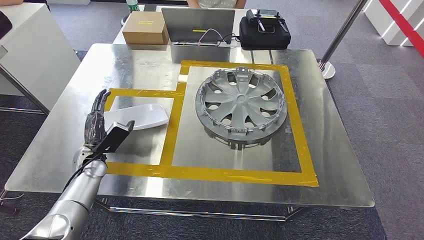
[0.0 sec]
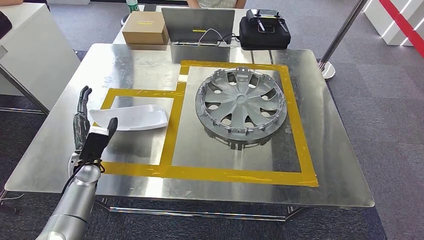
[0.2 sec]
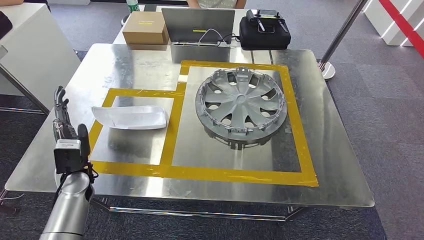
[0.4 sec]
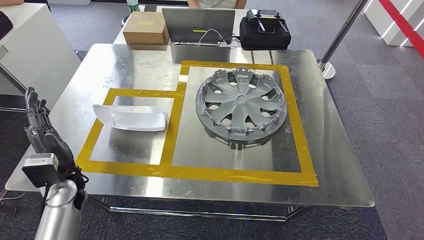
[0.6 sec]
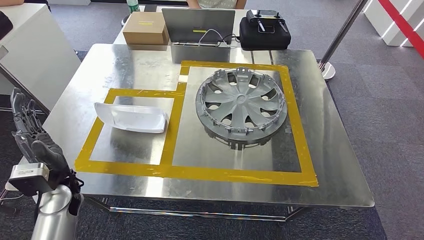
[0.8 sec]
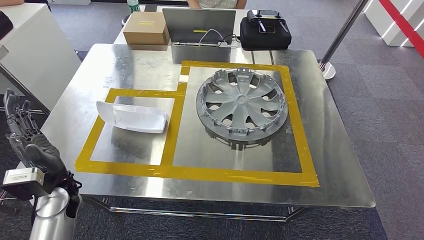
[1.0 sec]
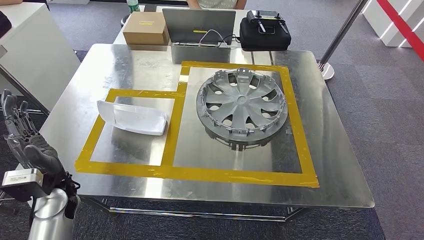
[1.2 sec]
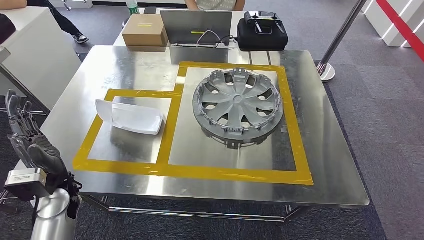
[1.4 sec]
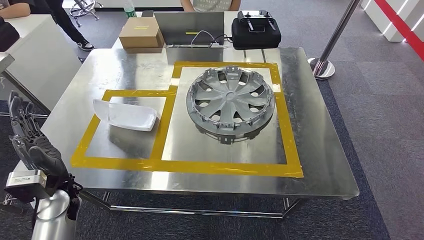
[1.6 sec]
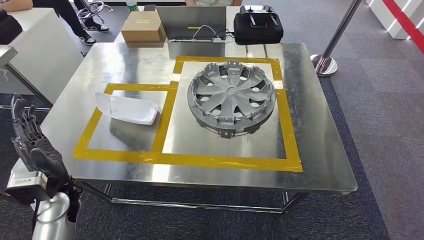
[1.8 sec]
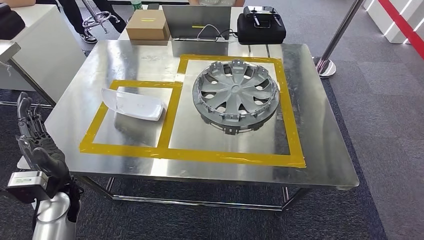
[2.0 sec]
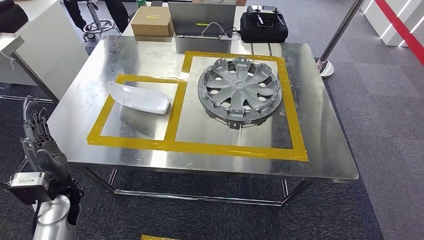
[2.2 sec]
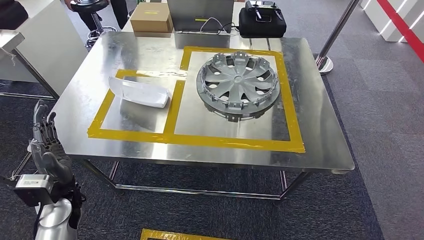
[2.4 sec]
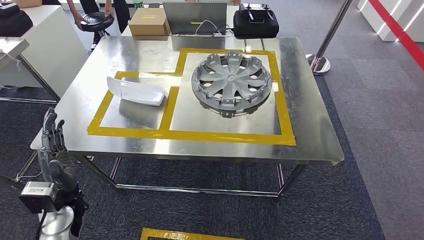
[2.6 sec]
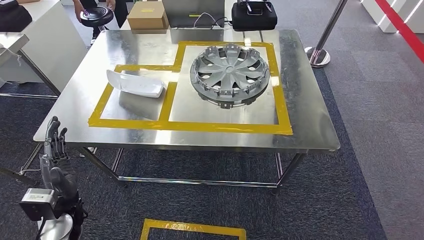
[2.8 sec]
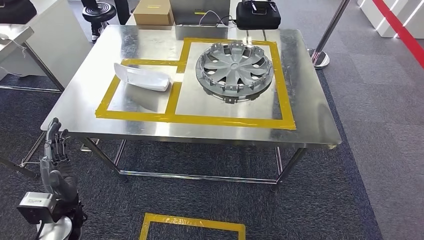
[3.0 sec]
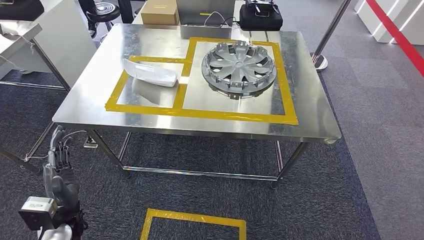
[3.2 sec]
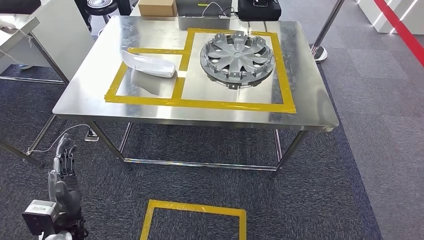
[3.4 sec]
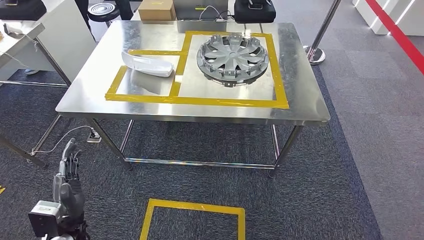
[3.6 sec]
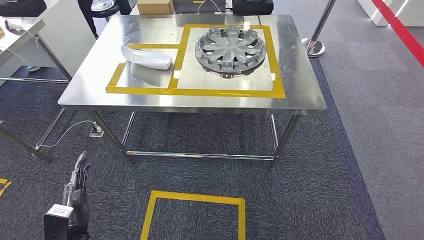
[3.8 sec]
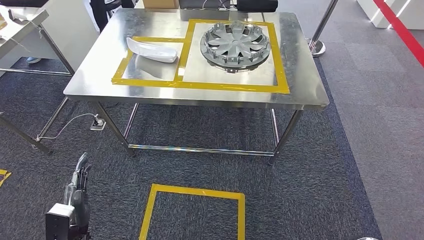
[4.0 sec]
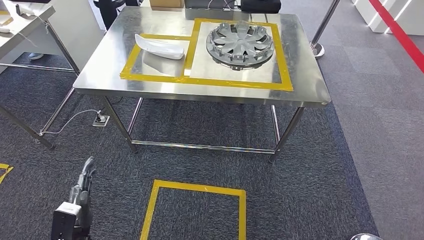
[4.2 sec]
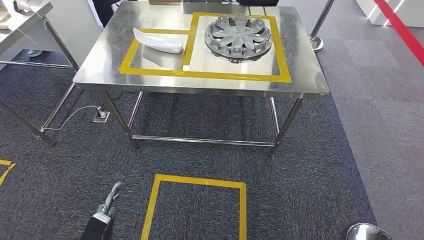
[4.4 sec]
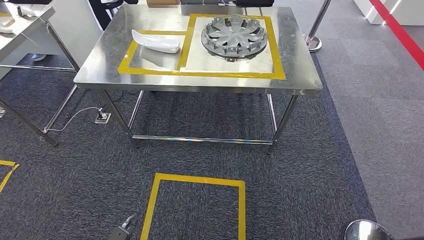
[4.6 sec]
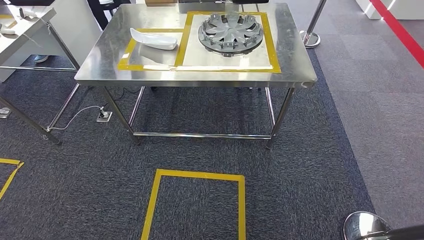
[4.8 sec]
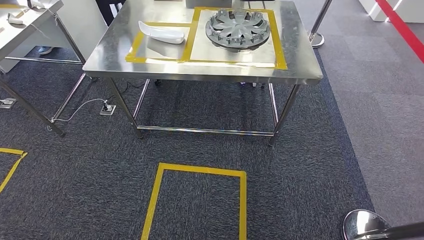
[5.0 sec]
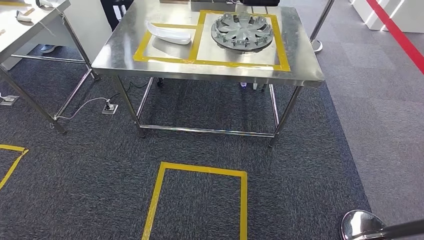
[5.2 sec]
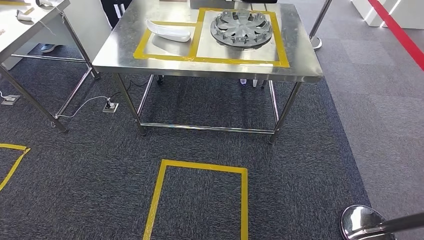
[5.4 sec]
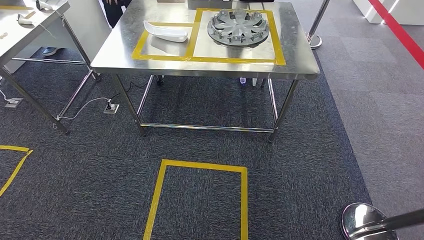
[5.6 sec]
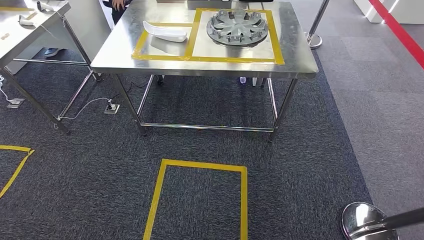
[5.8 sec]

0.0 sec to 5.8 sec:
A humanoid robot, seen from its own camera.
Step, 1.2 sec to 5.6 sec: Return to the initial position at the workbench.

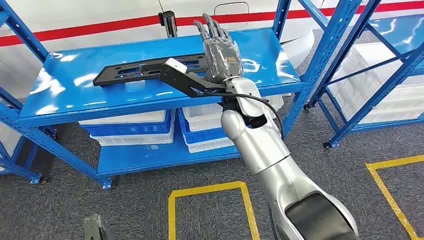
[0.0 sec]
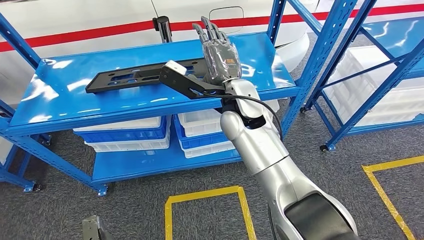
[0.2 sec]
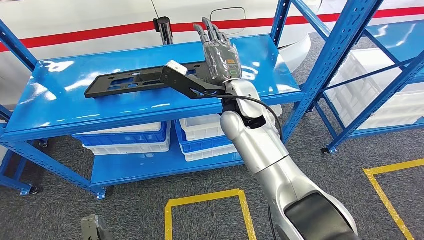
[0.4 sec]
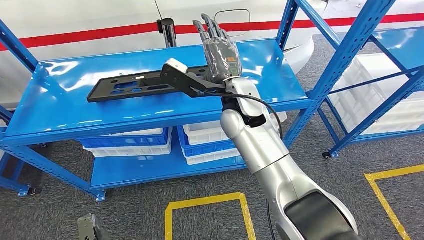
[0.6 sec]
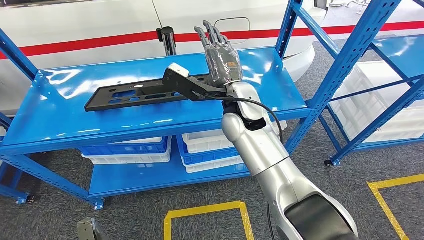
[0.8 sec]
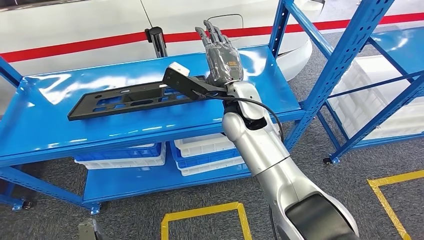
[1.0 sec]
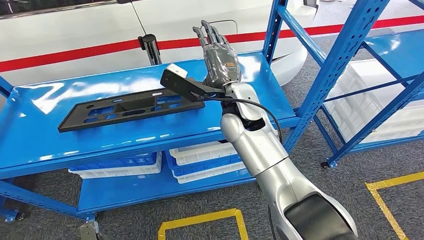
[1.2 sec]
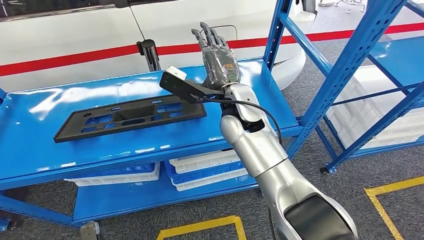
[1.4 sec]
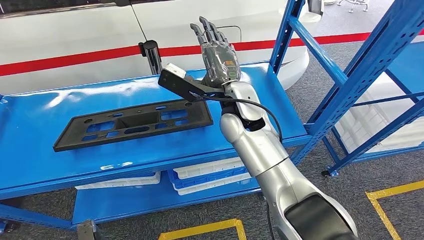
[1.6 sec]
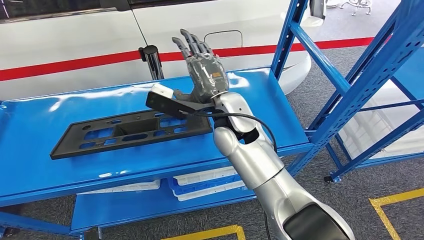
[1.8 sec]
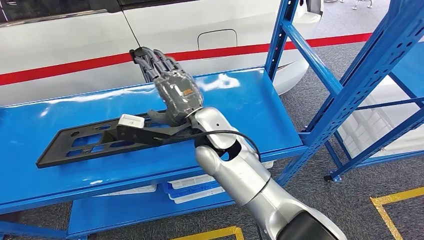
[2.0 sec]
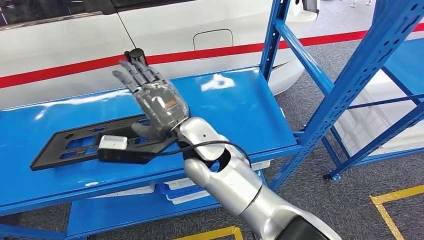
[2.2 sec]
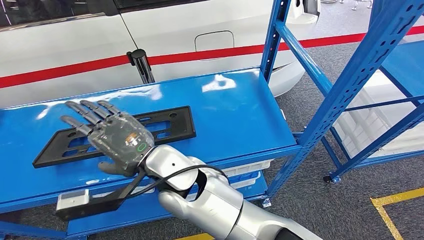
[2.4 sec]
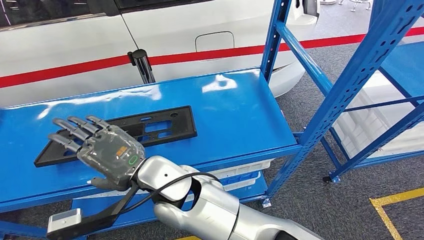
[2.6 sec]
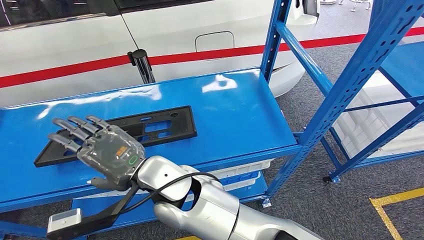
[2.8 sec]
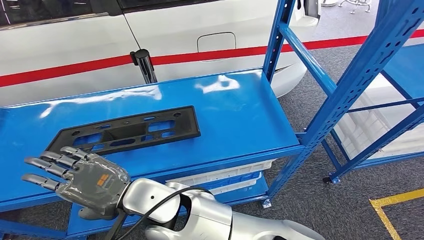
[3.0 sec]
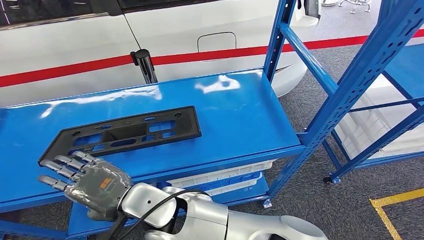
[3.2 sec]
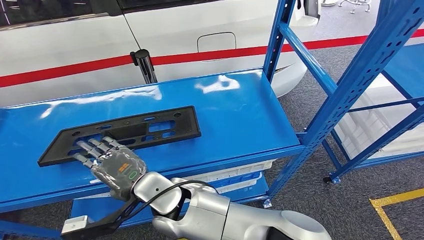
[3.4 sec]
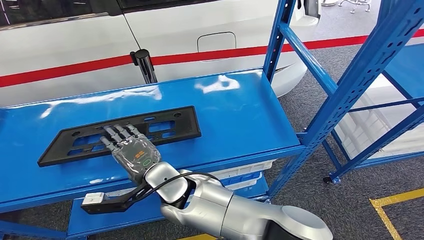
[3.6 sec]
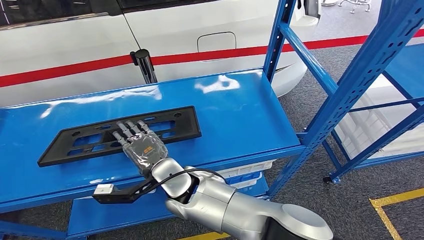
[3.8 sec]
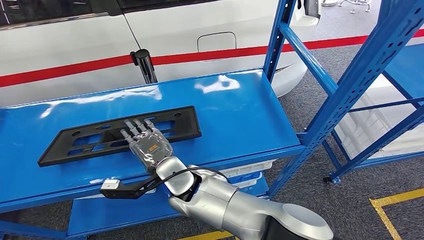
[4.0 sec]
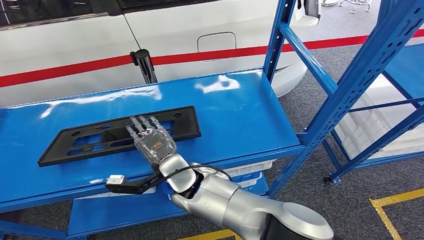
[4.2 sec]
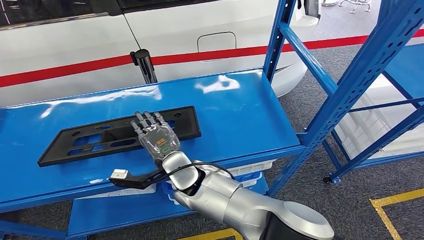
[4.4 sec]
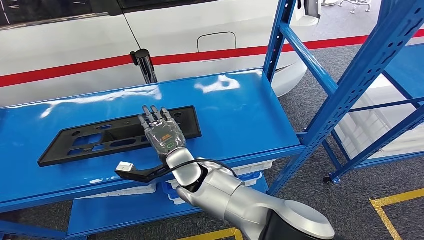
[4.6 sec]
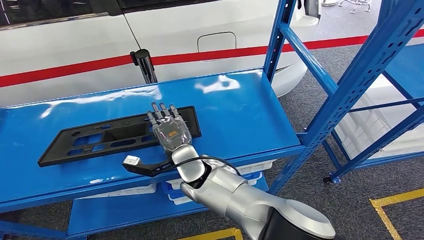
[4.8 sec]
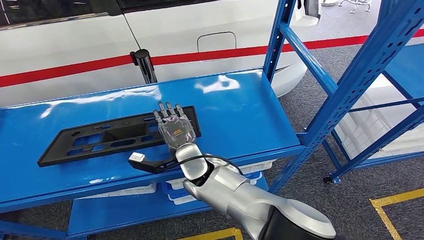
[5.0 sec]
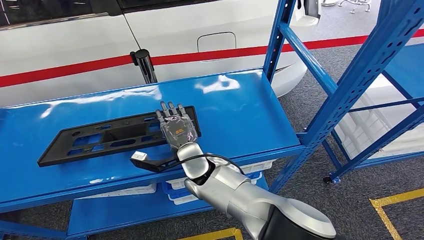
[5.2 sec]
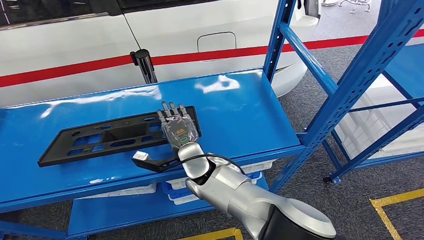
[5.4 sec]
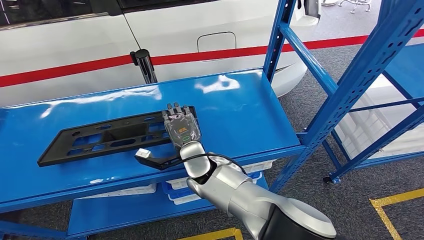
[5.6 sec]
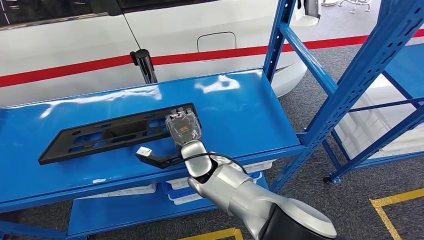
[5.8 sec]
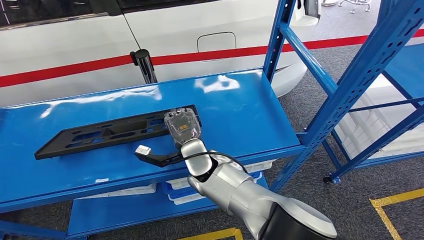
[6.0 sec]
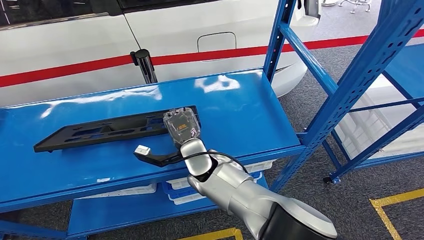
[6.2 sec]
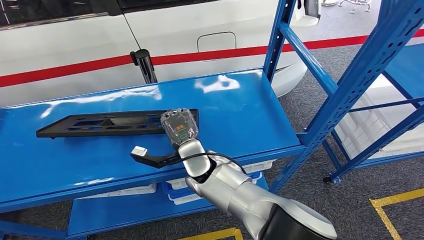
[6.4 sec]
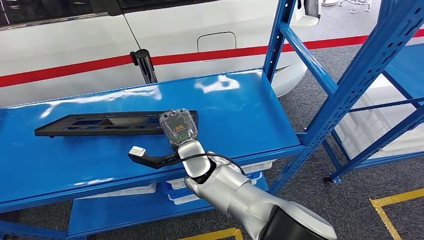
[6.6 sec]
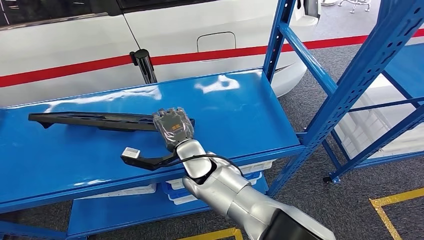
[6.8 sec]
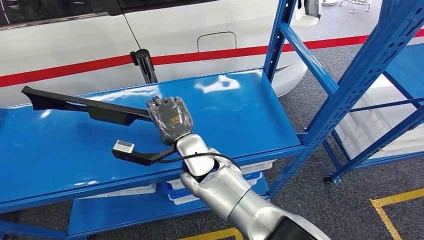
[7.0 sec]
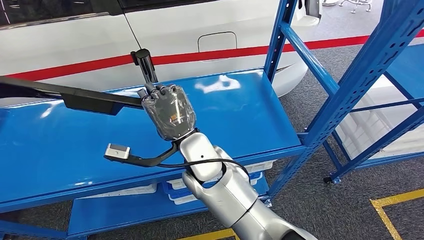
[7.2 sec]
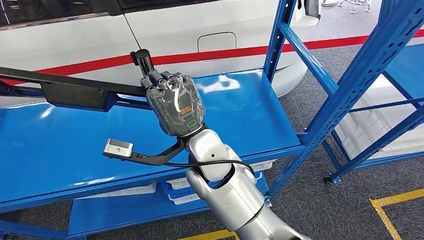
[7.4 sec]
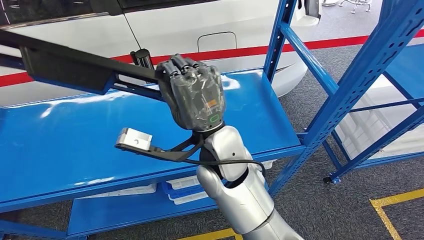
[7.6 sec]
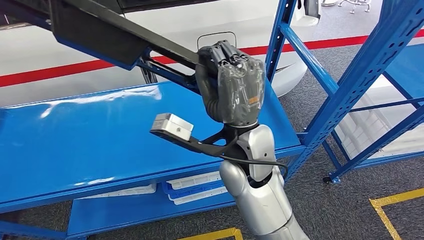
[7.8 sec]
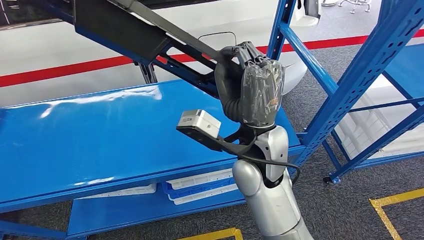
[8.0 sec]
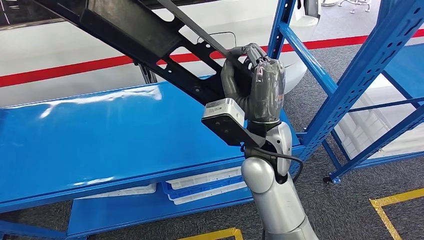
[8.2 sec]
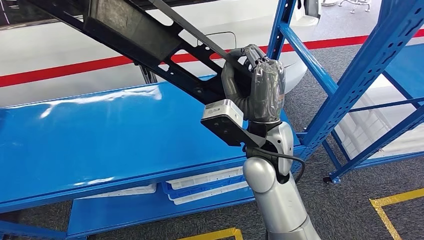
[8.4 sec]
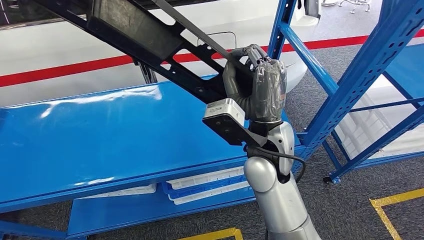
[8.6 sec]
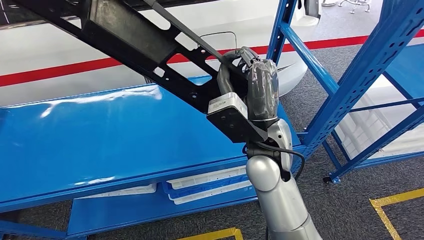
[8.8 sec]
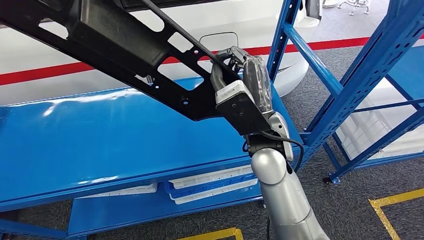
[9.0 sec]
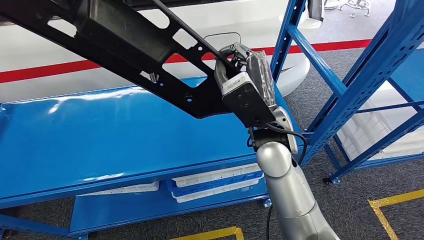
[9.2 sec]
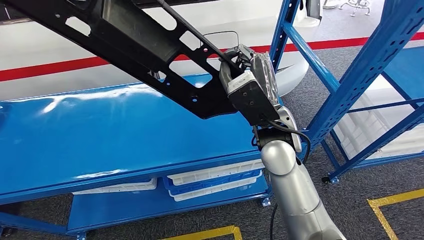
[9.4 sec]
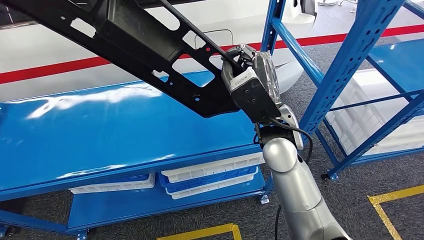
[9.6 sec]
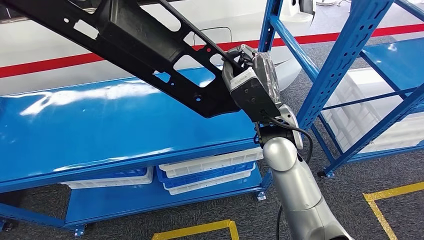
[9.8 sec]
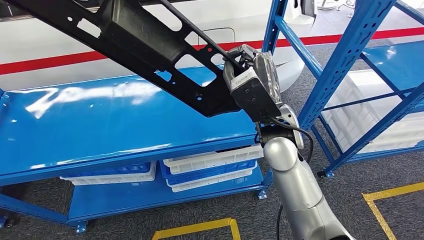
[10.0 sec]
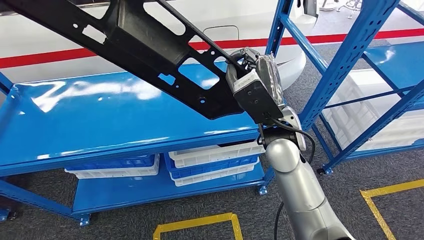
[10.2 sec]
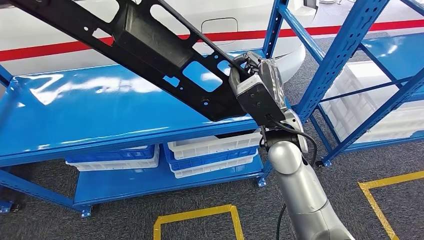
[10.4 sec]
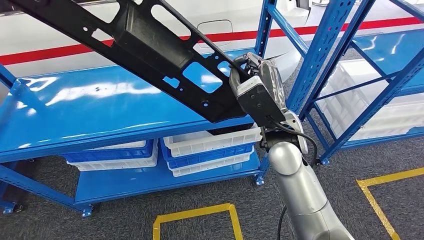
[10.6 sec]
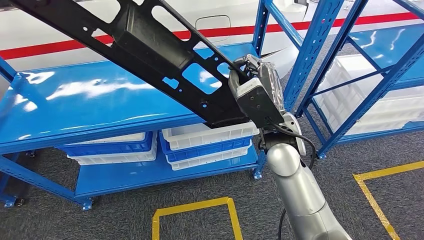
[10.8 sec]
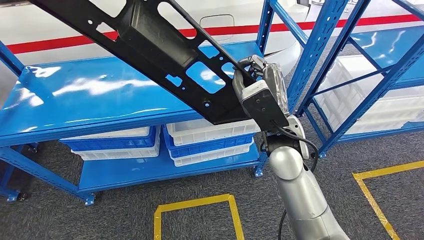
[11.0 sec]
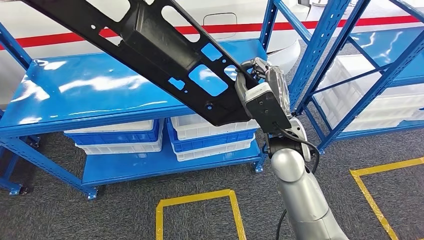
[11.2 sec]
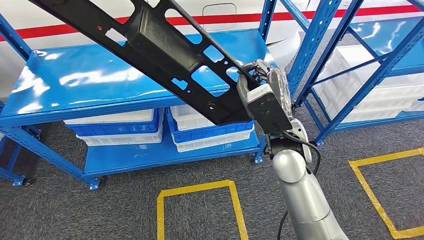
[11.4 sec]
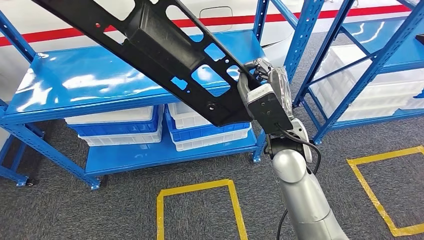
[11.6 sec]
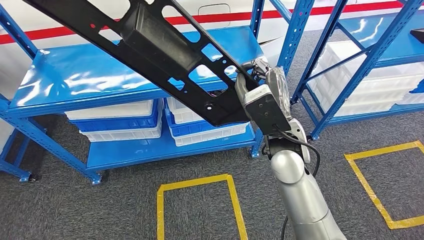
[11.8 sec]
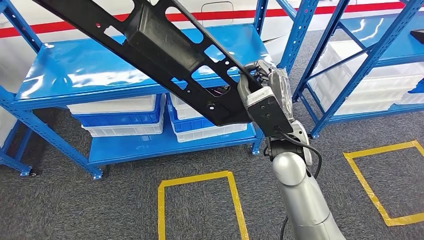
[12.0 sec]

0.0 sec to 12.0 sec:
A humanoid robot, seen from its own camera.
3.0 sec to 4.4 sec: The right hand is displaced downward and forward by some 10 cm.
4.4 sec to 6.0 sec: The right hand moves some 5 cm.
